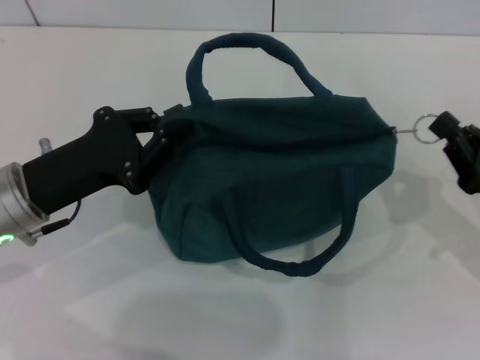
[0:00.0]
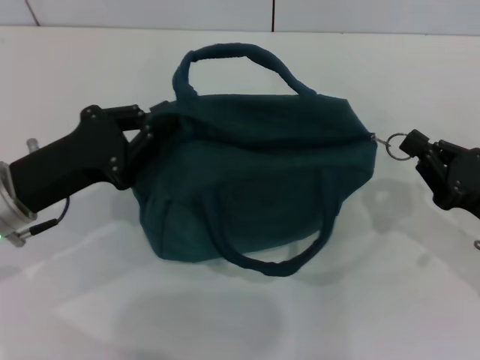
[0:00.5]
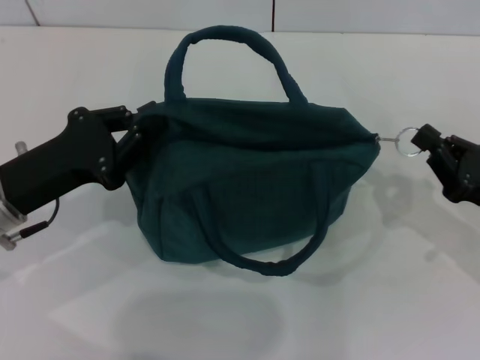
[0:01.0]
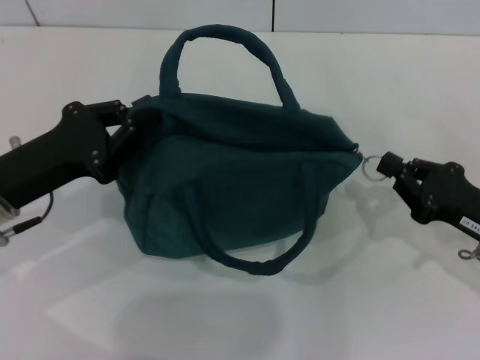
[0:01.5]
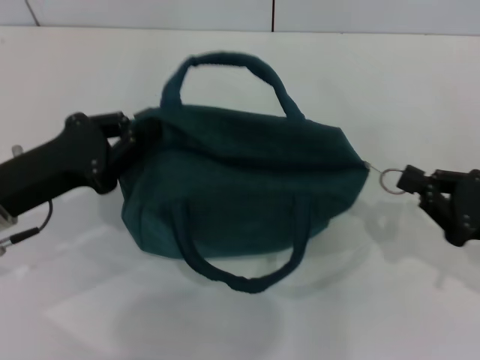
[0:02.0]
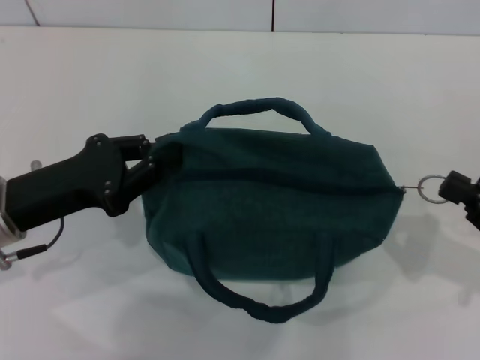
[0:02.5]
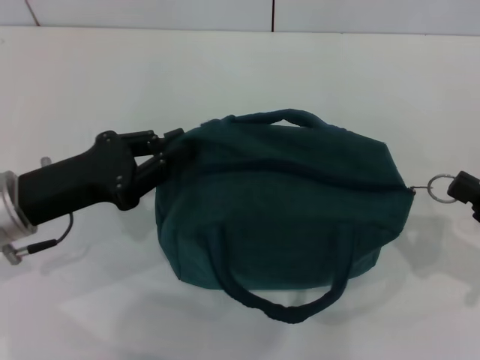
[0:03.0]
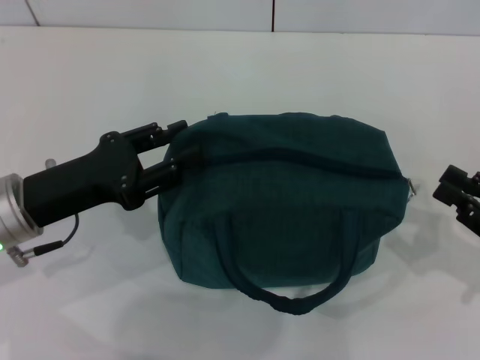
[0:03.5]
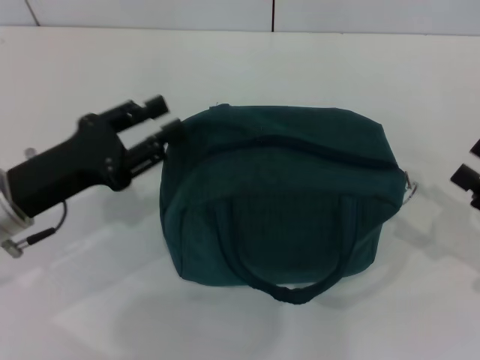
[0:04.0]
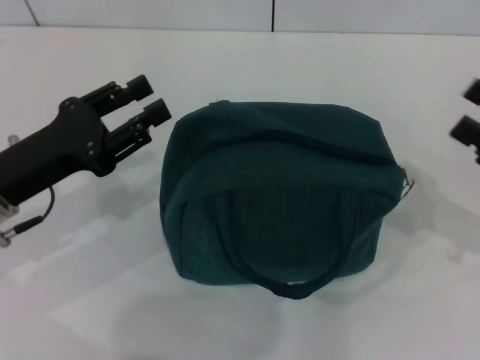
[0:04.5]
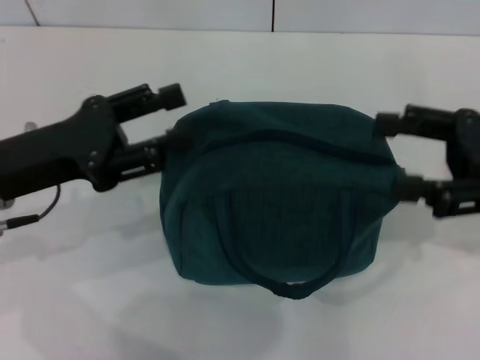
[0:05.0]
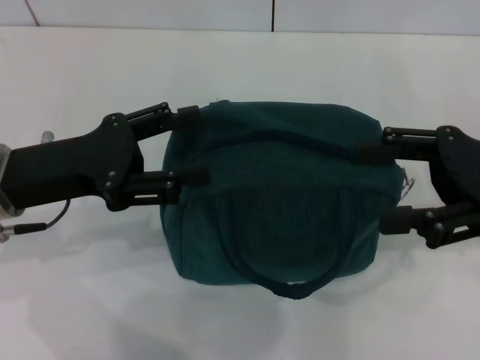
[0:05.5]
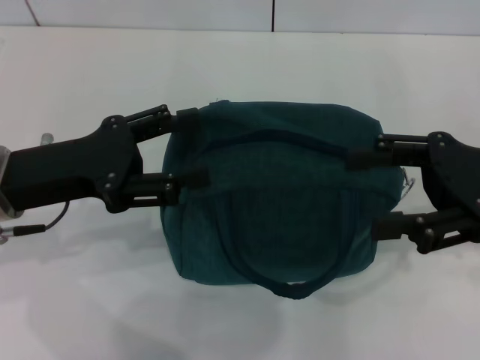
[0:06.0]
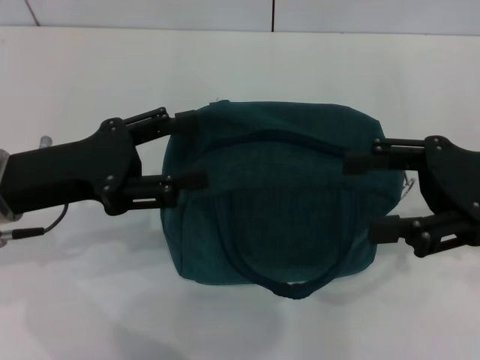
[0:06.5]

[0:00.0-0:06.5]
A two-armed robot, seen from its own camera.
Step, 0:00.0 to 0:03.0: Zip up the lunch bag with your right hand.
Step, 0:03.5 to 0:04.0: Hold the lunch bag with your left hand.
0:00.0 to 0:02.0: The grippers move only a little.
0:02.0 to 0:04.5: The left gripper opens up. Meanwhile the right gripper ends up about 5 cm from where it was, and opens.
0:04.5 to 0:06.5: The right gripper travels to the left and upward by roughly 10 cm. Meanwhile the left gripper opens its fingers.
